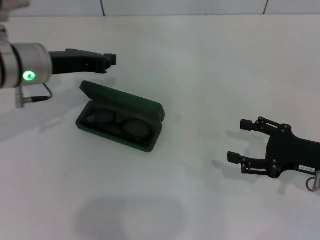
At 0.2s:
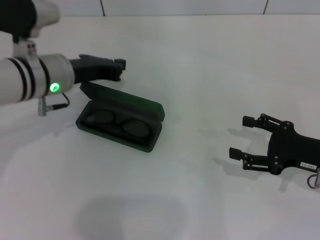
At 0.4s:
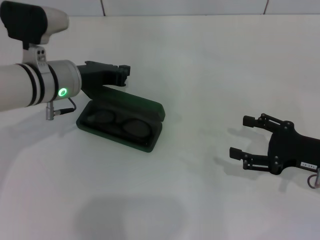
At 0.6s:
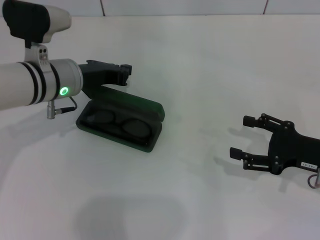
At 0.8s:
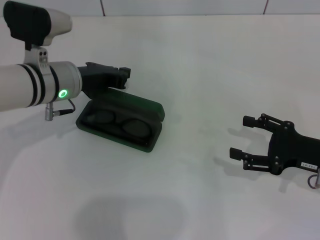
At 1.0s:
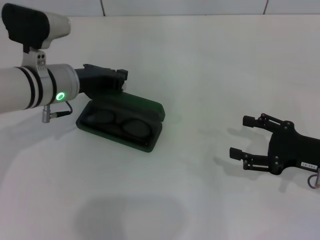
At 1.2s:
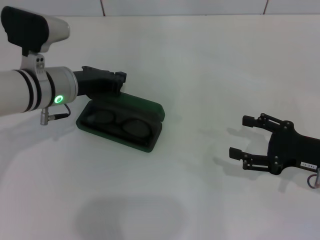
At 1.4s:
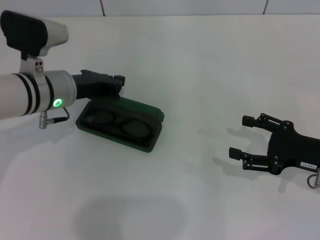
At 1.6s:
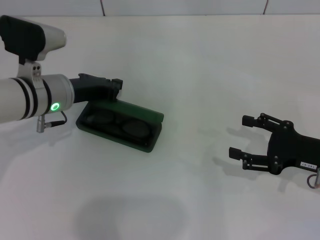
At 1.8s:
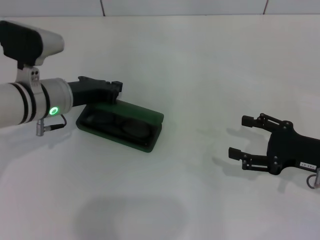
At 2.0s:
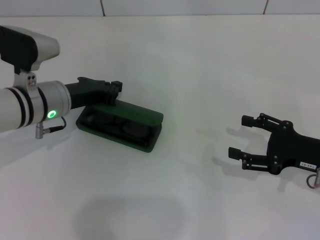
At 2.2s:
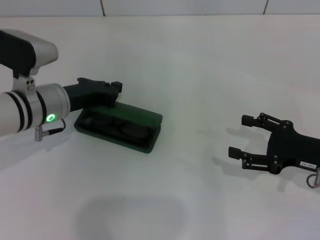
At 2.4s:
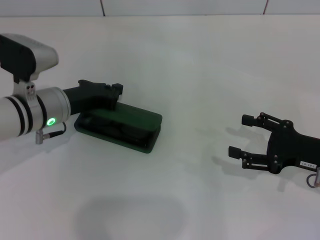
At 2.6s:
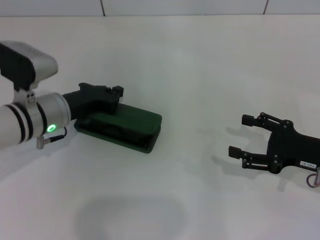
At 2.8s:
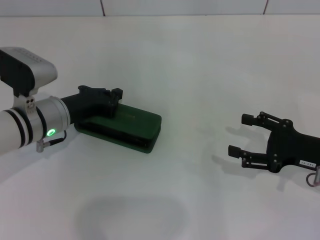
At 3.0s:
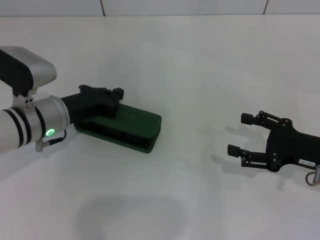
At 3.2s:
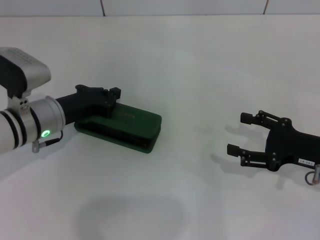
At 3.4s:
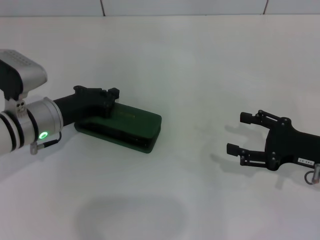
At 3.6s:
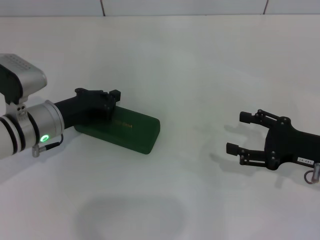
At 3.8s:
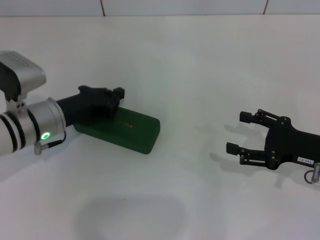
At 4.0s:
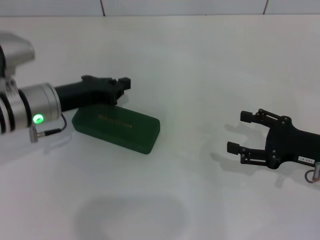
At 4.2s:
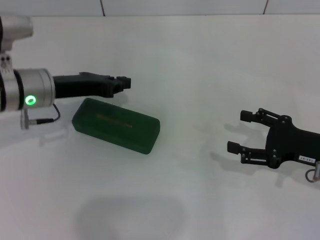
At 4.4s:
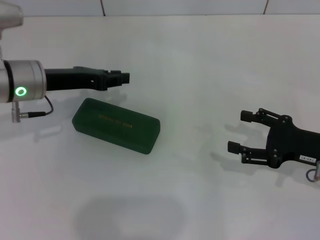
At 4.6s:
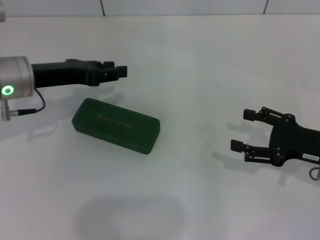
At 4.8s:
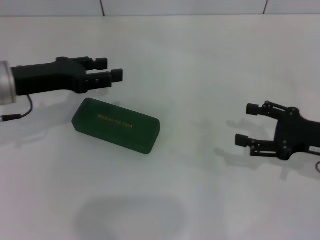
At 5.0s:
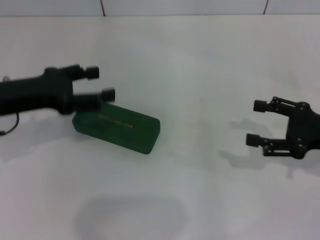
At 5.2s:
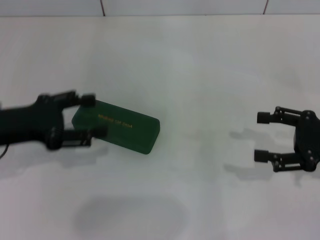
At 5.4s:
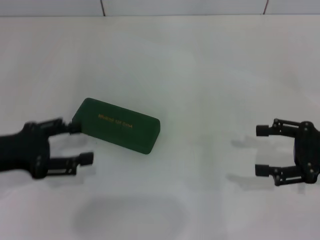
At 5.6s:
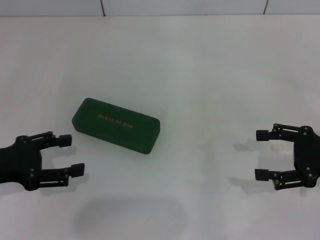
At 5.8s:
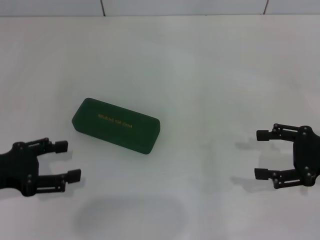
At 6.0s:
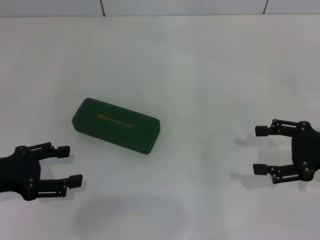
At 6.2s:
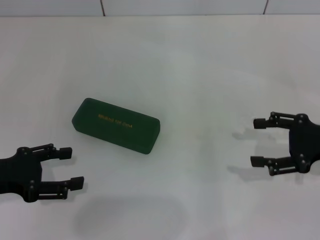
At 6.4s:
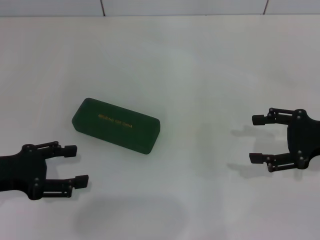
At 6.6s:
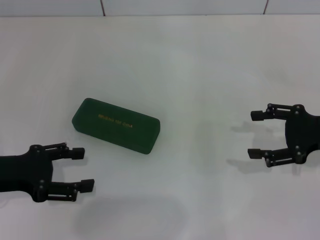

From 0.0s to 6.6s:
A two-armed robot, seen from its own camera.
Step, from 0.0s to 3.6s: Close the glasses case with your left hand.
From 0.0s to 1.6s: The left gripper is displaced downward by roughly 5 cm.
From 1.6s to 3.2s: The left gripper shifts by some 5 cm.
From 3.2s to 5.0s: The left gripper goes roughly 10 cm upward and to the left, and opens its fingers.
From 5.0s to 6.6s: The left gripper travels backward by approximately 5 cm.

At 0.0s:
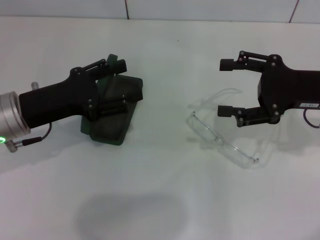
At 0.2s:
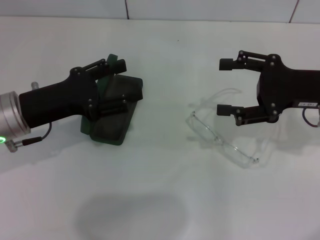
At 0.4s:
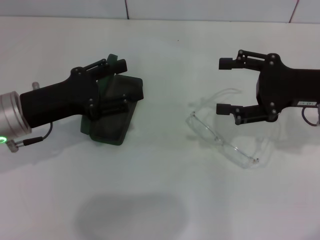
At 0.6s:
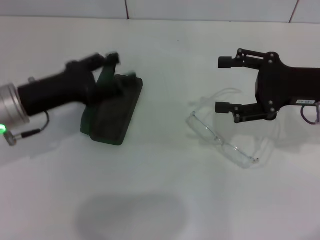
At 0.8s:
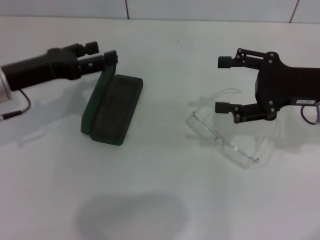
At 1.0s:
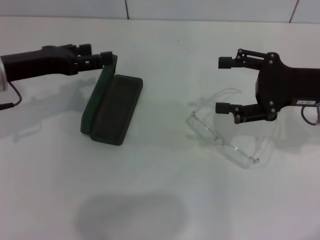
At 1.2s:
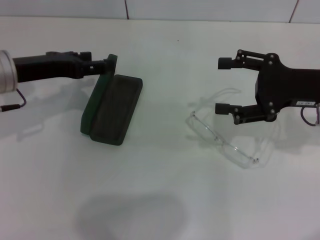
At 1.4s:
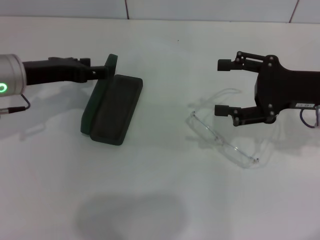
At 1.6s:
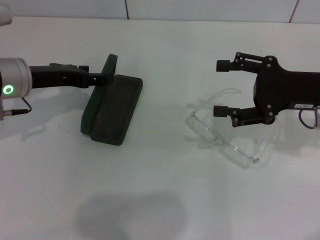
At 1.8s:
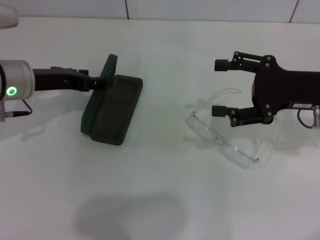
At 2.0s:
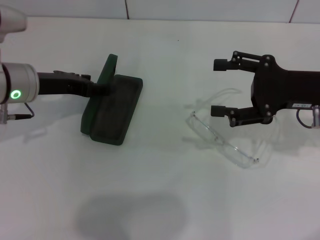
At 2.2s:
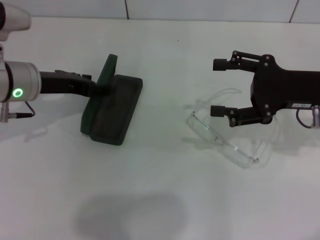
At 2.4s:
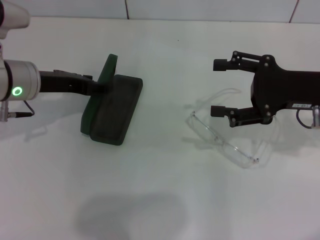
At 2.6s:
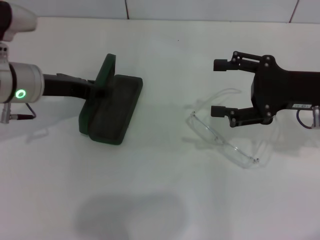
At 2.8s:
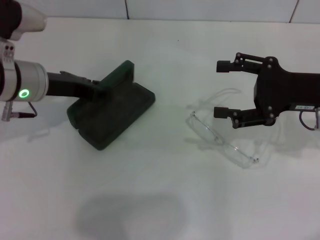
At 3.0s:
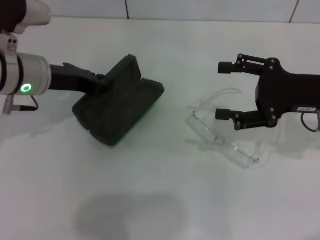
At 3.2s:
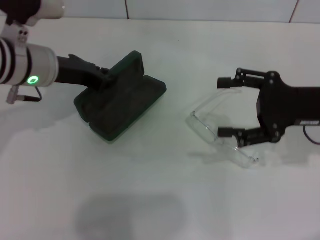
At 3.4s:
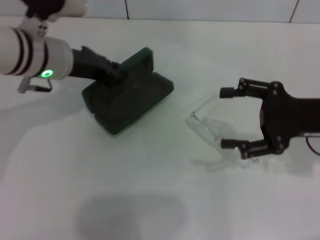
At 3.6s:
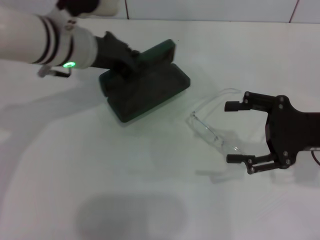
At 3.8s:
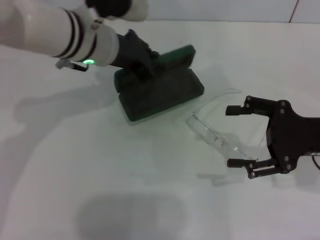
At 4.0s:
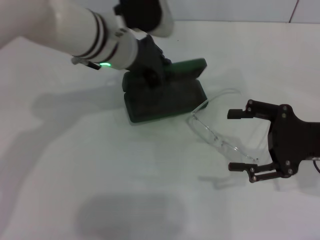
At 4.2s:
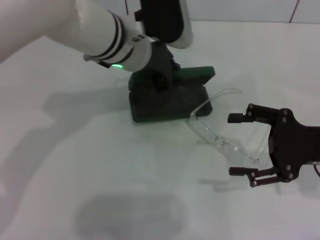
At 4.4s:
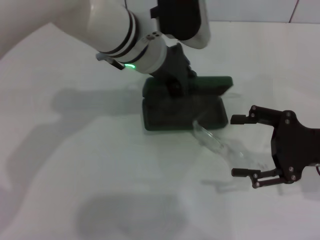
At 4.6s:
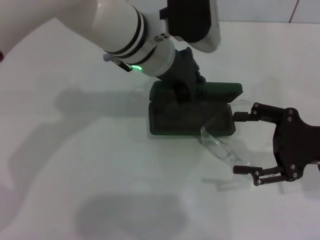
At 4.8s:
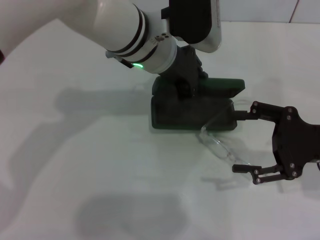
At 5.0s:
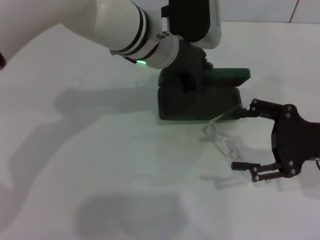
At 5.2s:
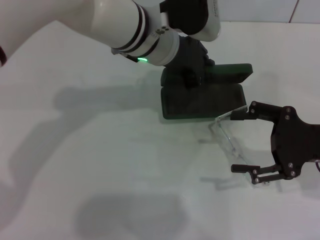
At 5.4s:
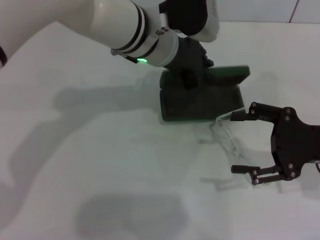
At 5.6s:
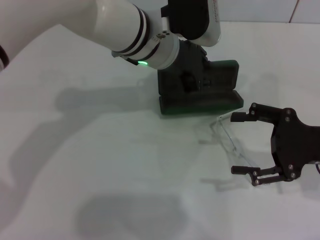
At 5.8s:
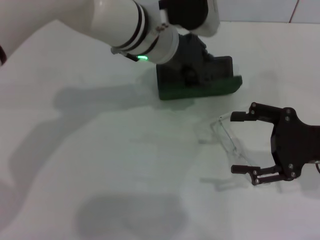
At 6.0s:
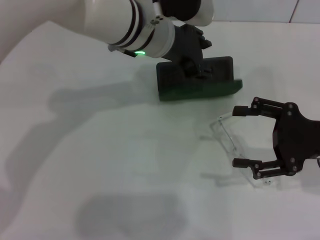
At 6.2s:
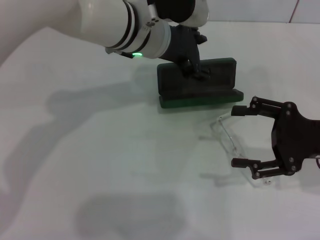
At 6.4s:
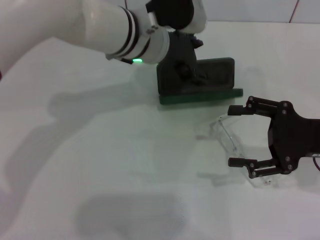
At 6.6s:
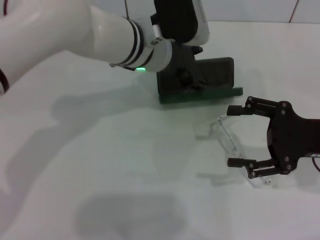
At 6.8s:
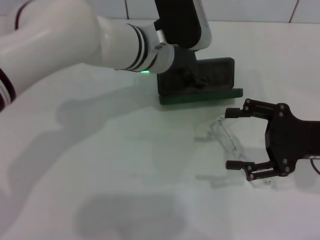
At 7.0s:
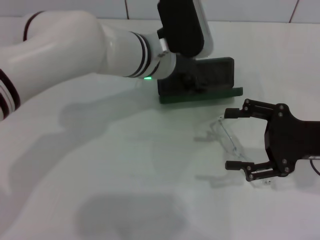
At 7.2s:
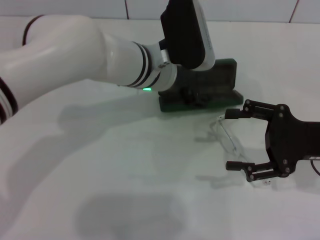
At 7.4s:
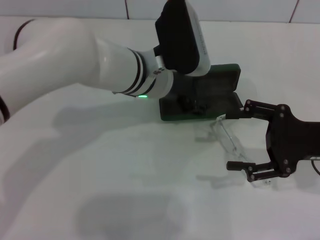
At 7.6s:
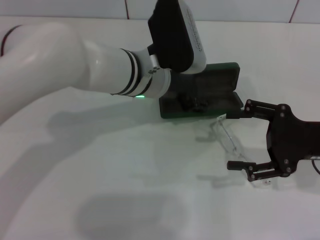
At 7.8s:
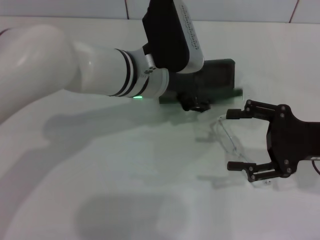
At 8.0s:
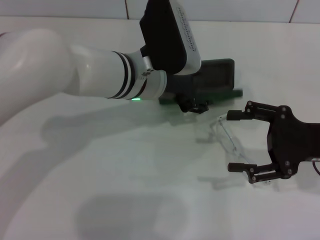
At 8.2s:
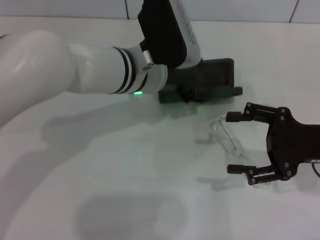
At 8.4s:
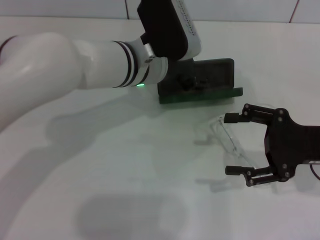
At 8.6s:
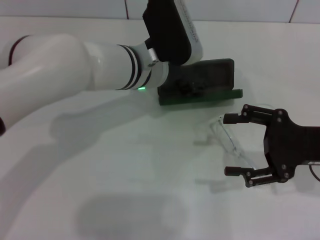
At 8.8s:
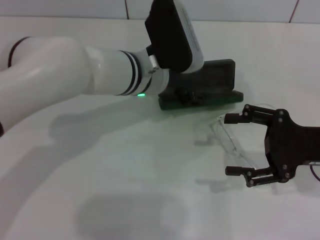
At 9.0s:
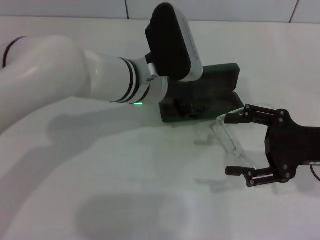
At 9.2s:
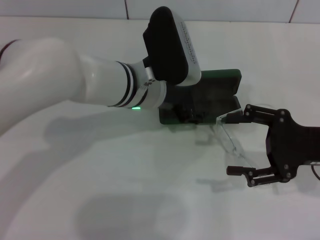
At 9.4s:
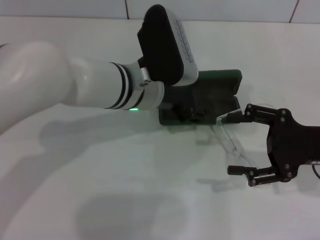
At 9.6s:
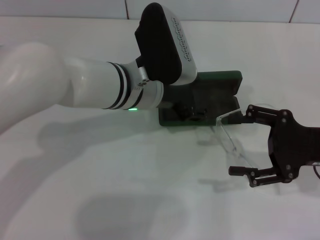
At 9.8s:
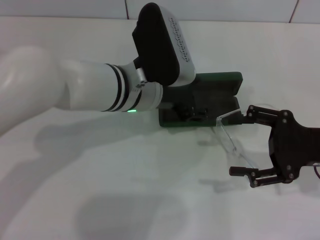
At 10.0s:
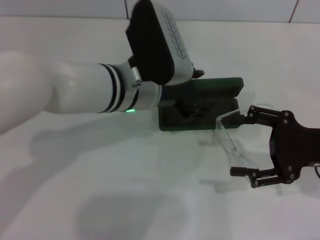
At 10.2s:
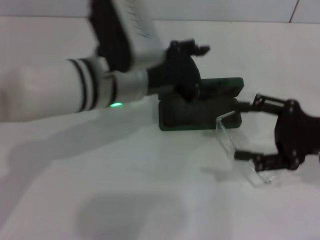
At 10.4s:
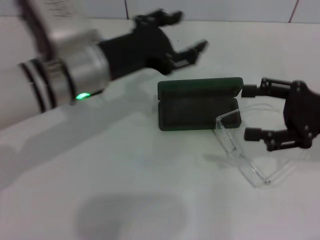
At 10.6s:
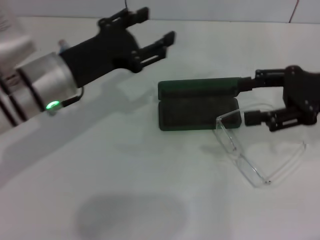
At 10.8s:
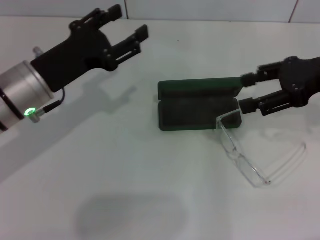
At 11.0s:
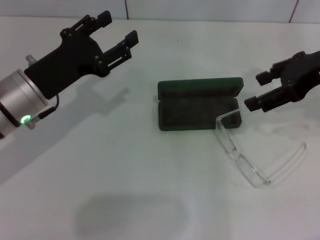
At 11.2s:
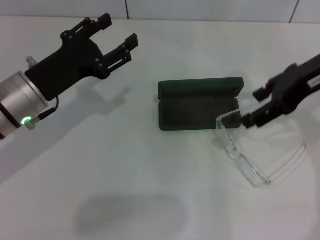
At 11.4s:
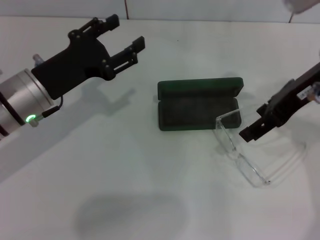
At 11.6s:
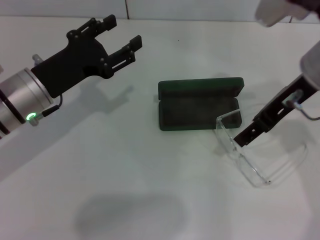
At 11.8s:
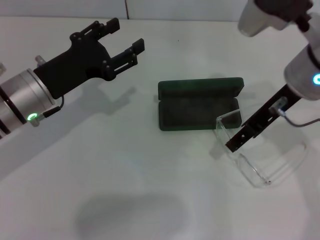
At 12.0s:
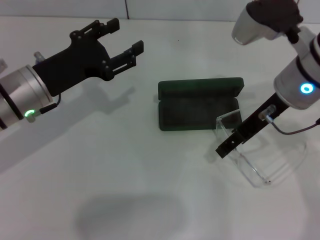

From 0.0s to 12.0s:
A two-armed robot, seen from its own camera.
Step, from 0.0s to 2.6s: Grab the glasses case with your left hand.
Step, from 2.8s to 10.0s: Place the glasses case in the center of the table with your left hand.
From 0.0s to 1.6s: The left gripper shifts some 5 cm forward.
From 1.6s to 3.0s: The left gripper closes.
From 3.0s to 4.4s: The left gripper goes roughly 15 cm to the right. Meanwhile the right gripper goes some 5 cm backward.
From 4.4s to 6.0s: The left gripper opens up.
From 6.0s to 7.6s: The left gripper moves downward, about 5 cm, and opens.
From 7.6s to 9.0s: The grippers move only a little.
From 9.0s to 10.4s: The left gripper travels to the left by some 10 cm.
From 10.4s to 12.0s: The left gripper goes about 10 cm to the left and downward. The right gripper moves to the left and upward, about 15 cm.

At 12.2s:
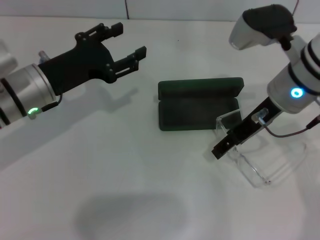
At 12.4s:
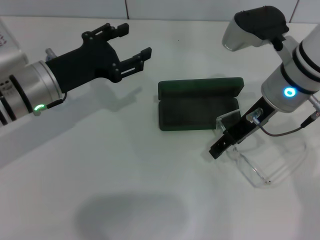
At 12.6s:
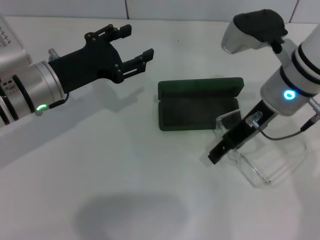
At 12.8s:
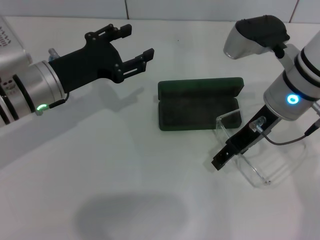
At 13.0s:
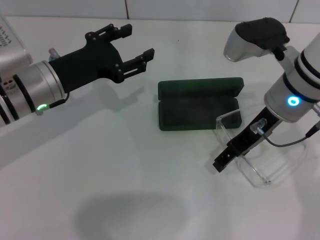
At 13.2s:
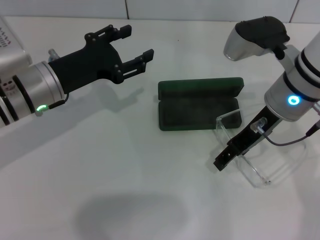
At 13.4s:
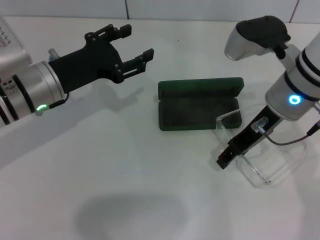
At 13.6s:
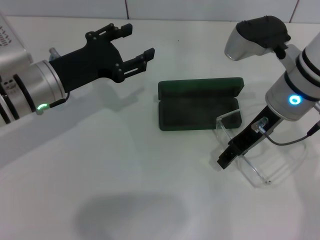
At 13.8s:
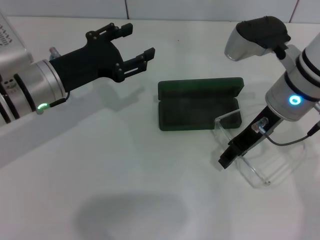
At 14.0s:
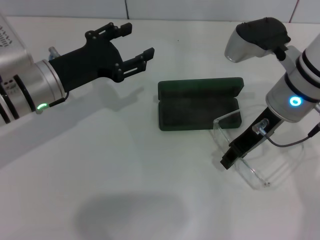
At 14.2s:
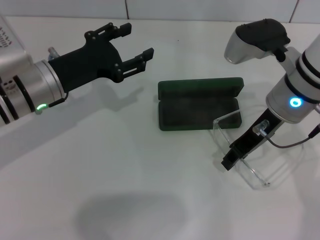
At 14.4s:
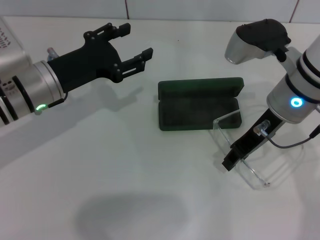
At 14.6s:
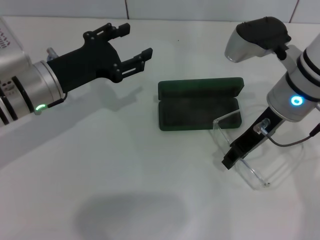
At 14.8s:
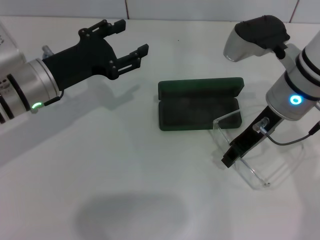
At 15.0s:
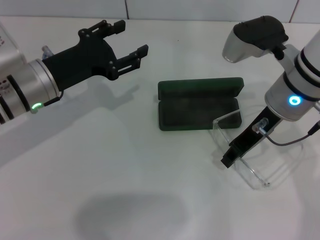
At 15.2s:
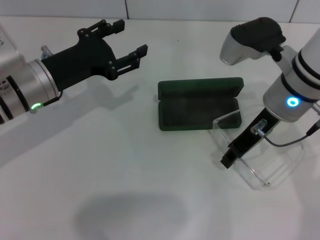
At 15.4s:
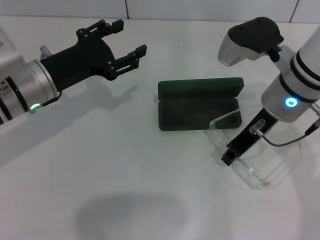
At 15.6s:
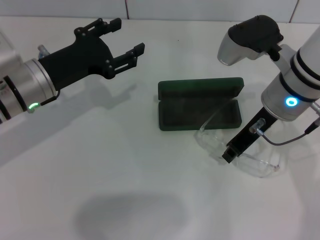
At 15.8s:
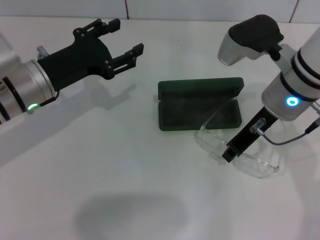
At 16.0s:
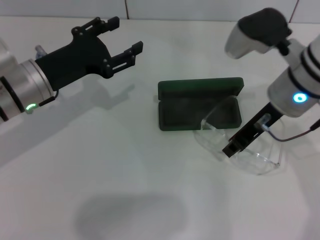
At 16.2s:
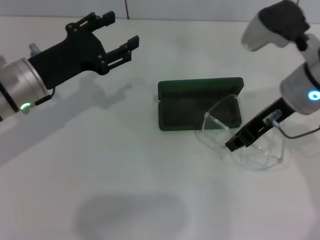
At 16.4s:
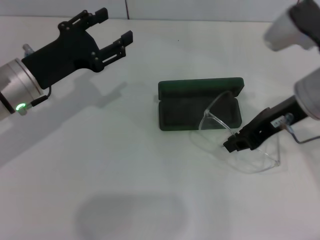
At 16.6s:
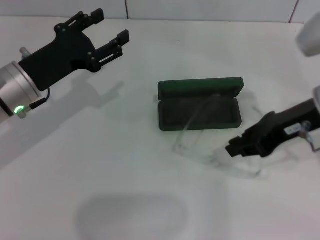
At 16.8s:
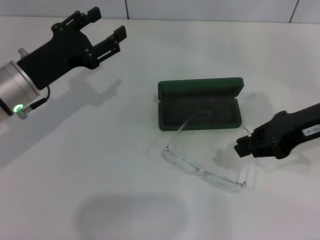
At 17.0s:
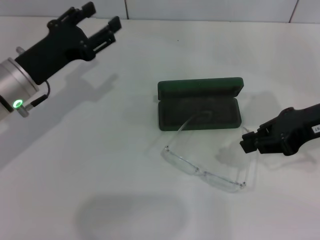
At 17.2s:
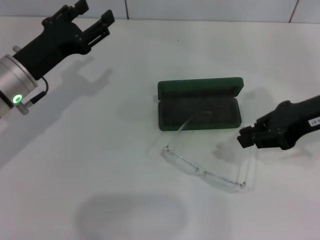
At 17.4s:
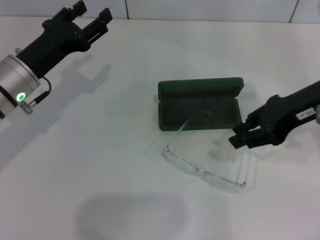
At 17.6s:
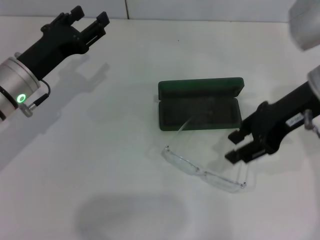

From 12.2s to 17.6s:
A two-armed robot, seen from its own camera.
From 12.2s to 13.6s: Both grippers stay put.
From 13.6s to 15.0s: Both grippers stay about where they are.
From 15.0s to 16.2s: The grippers make only small movements.
